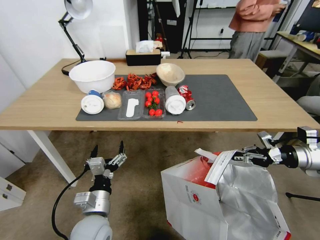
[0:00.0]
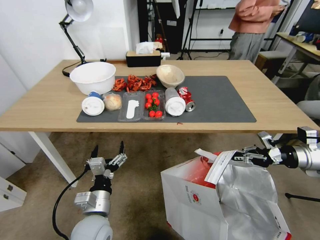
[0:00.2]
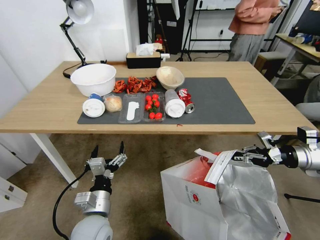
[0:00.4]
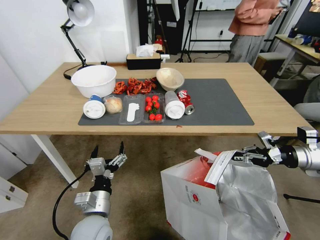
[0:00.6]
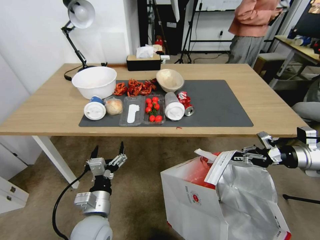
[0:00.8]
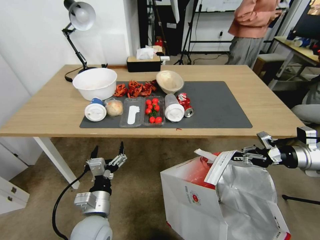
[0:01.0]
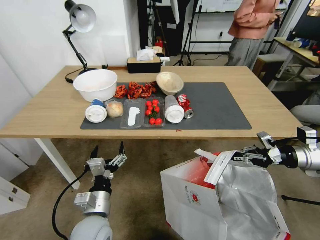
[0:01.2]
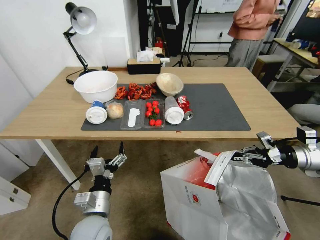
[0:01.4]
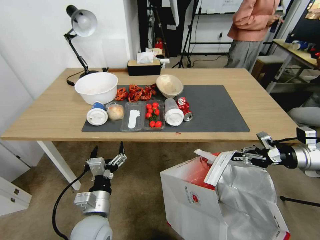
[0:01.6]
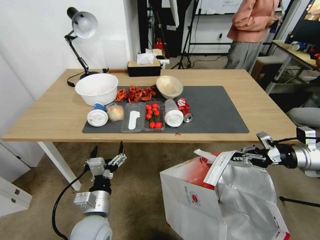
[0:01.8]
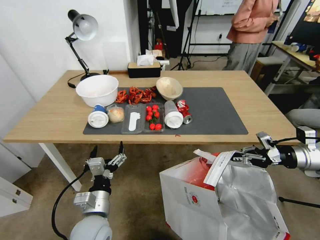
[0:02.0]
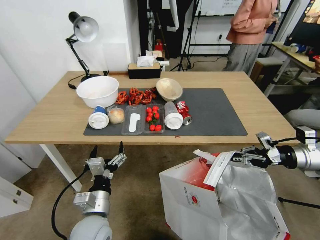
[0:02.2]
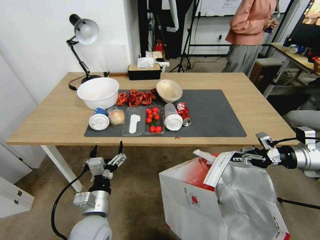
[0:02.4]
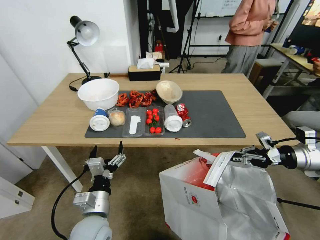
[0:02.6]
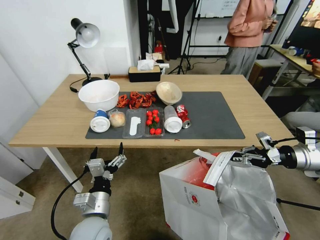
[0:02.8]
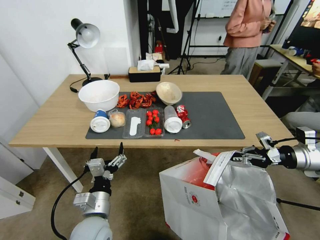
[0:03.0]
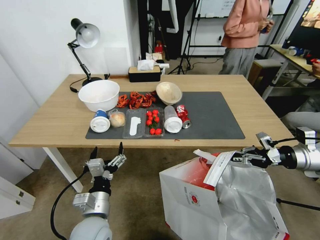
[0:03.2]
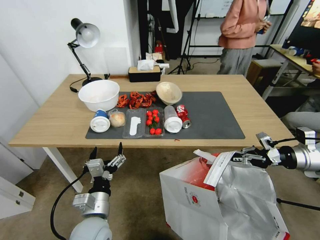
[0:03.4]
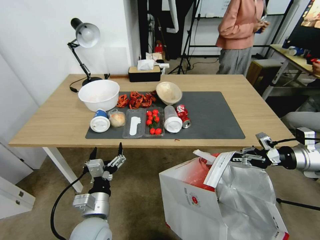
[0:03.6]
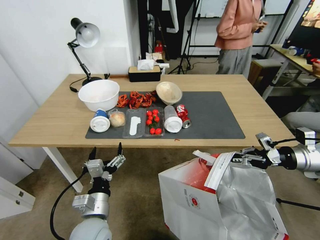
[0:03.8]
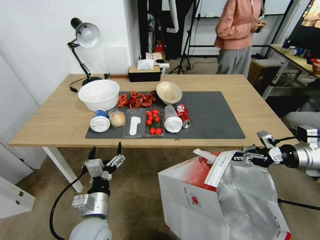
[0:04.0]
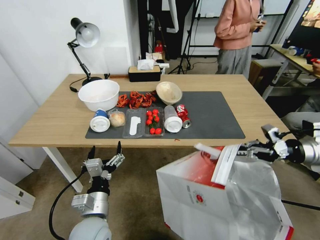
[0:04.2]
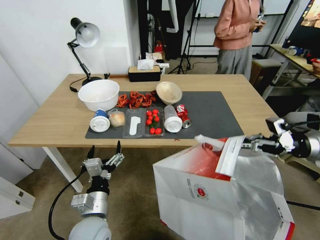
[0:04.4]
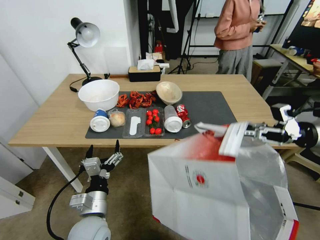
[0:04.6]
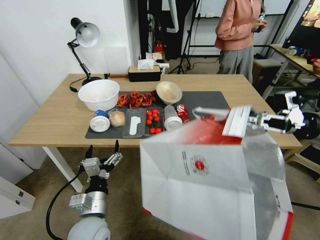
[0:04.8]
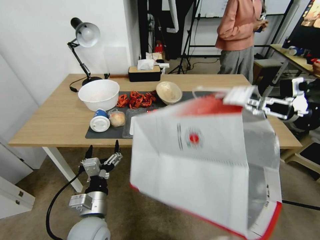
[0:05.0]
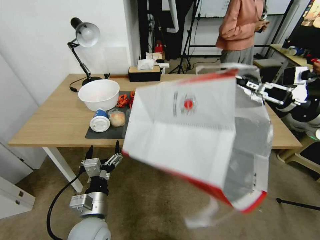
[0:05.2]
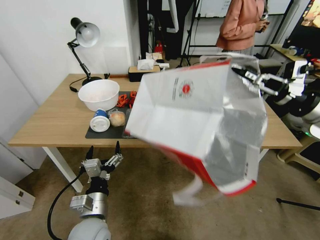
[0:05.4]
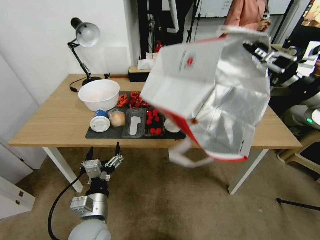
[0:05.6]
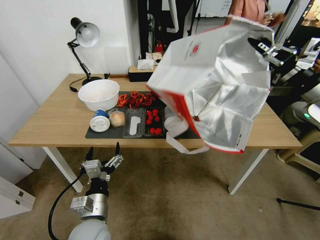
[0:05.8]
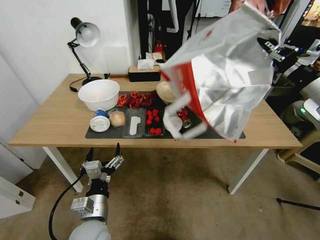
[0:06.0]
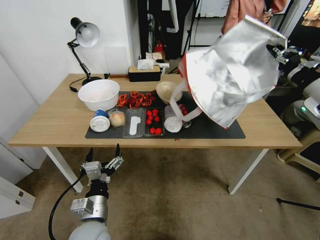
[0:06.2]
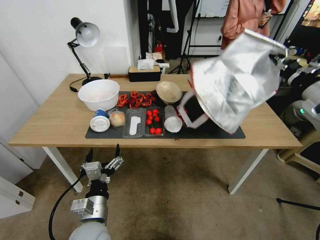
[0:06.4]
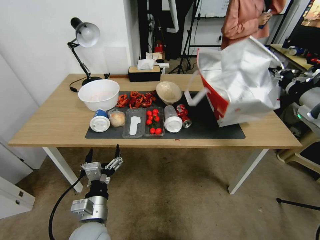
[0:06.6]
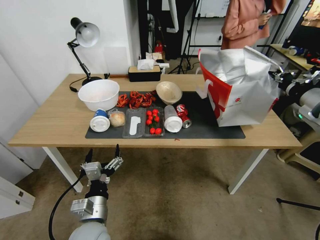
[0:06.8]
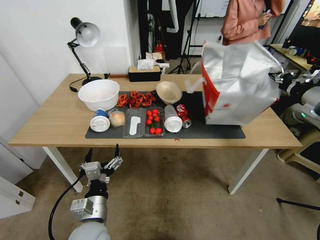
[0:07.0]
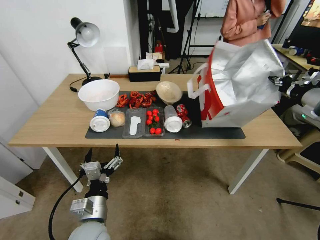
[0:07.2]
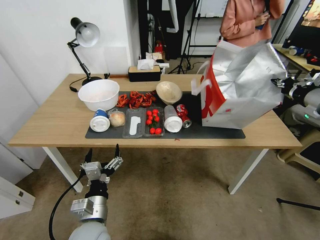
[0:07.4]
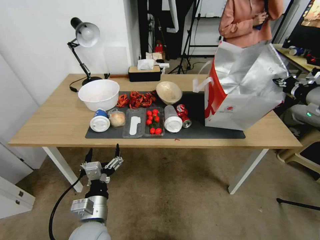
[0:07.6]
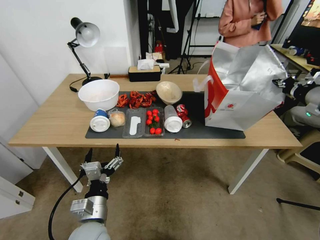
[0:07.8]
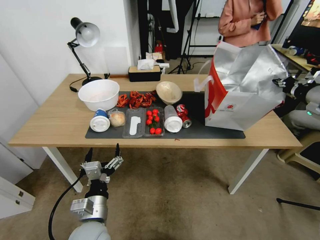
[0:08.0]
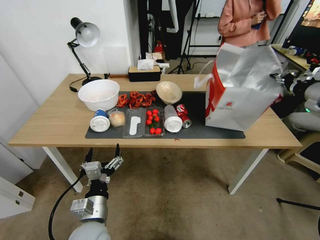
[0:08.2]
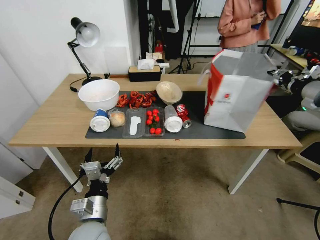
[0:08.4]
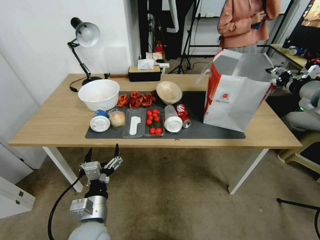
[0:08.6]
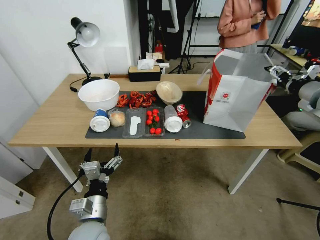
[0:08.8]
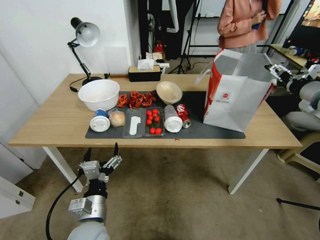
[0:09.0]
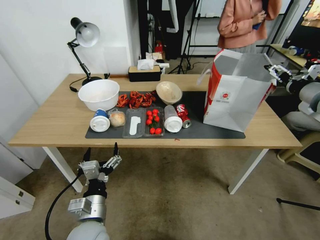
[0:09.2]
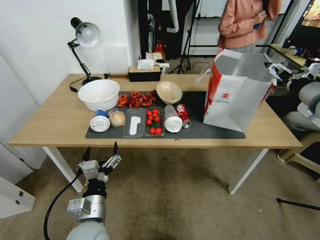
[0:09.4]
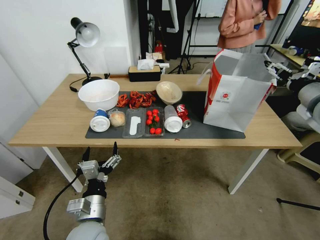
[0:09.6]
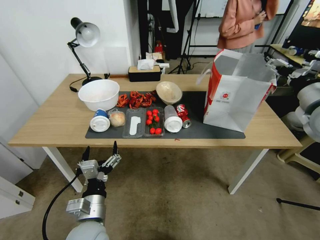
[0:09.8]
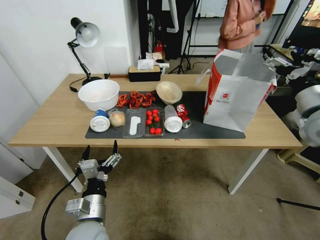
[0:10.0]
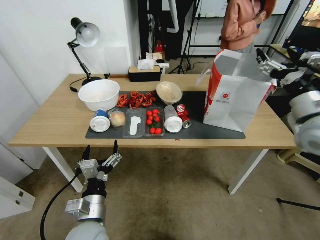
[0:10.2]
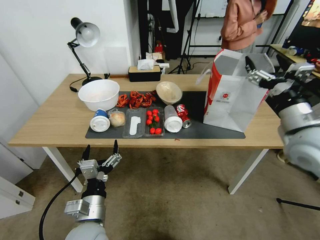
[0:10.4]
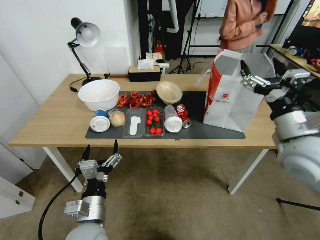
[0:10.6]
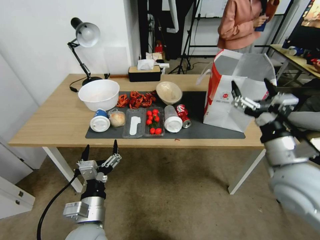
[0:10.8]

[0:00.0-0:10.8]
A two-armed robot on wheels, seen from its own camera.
Task of the whole recording: Pick up the food delivery bag from the floor and place it on the table.
0:03.0 to 0:04.6: The right gripper moves upward, approximately 10 cm.
0:04.6 to 0:06.2: The right gripper travels upward and to the left by roughly 10 cm.
0:07.8 to 0:09.2: The right gripper opens up.
0:09.2 to 0:10.8: The right gripper is displaced to the left, backward and downward by roughly 20 cm.

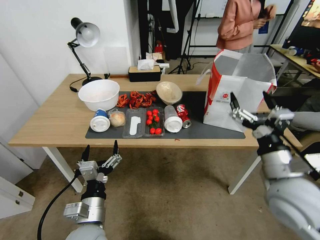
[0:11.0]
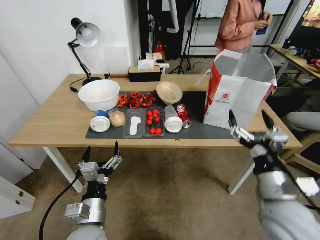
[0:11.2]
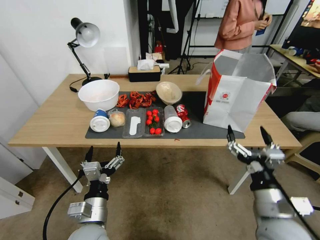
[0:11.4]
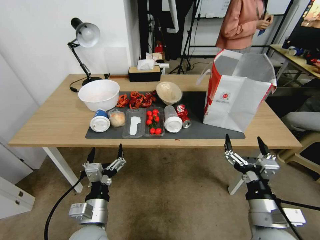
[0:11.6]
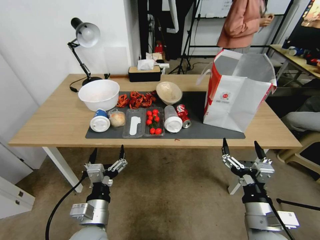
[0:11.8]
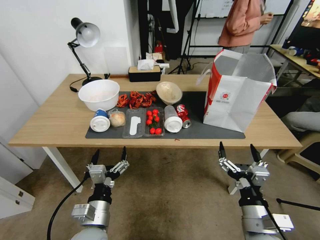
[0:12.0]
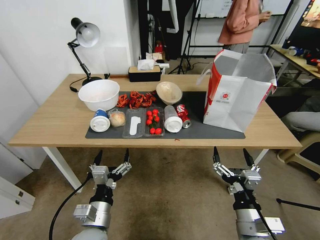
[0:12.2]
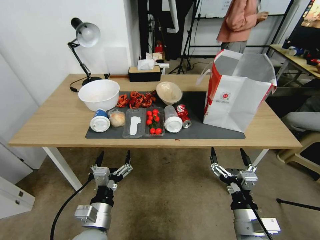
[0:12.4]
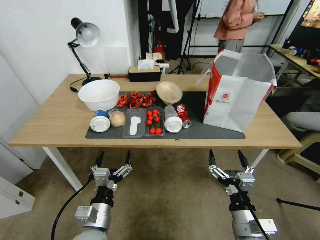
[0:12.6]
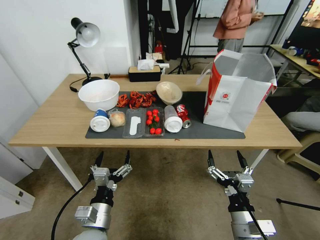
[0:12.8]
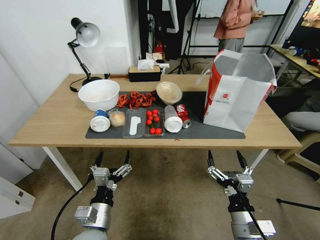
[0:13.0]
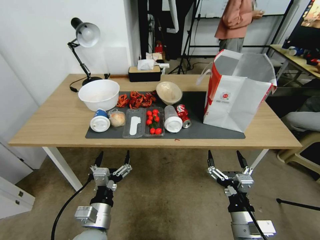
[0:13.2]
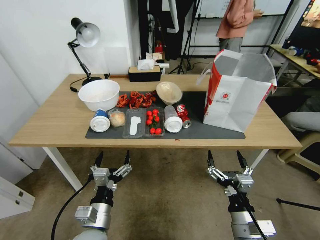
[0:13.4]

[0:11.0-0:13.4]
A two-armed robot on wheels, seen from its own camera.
Task of the whole recording: Pick up the food delivery bag from the floor and place it on the table.
0:11.0 to 0:12.2: The right gripper moves downward, backward and to the left, about 15 cm.
0:12.2 to 0:13.4: There are only small adjustments of the grippers.

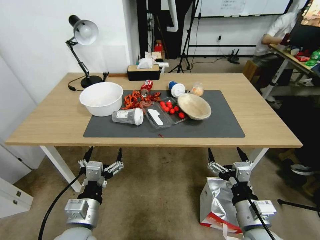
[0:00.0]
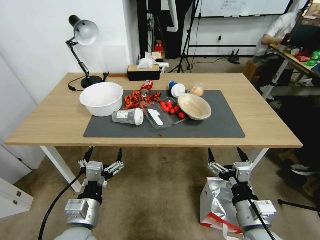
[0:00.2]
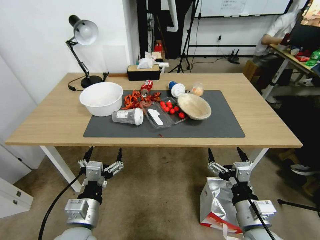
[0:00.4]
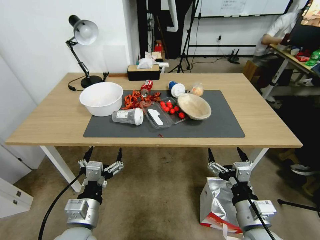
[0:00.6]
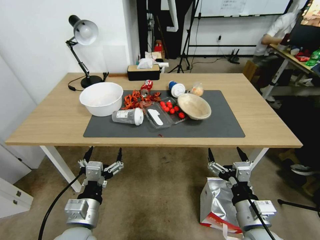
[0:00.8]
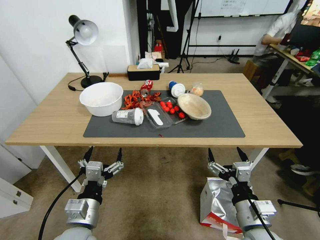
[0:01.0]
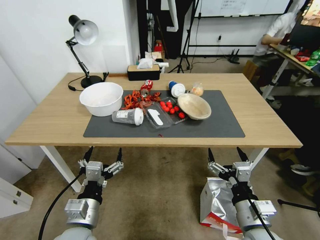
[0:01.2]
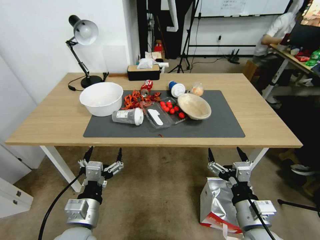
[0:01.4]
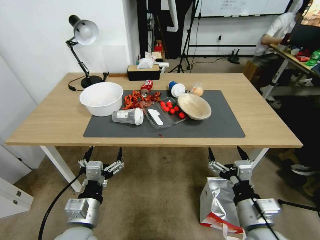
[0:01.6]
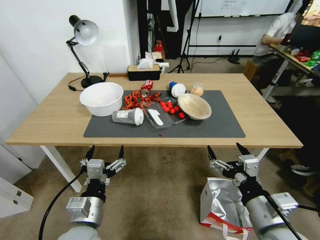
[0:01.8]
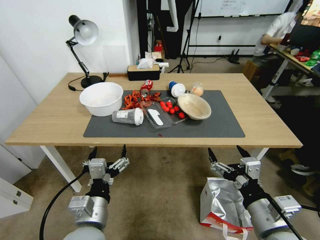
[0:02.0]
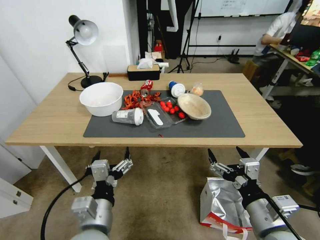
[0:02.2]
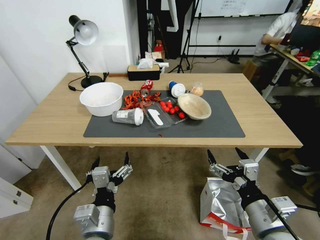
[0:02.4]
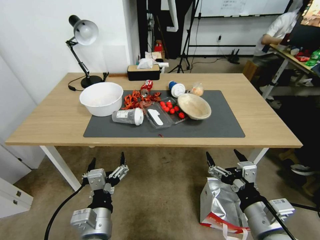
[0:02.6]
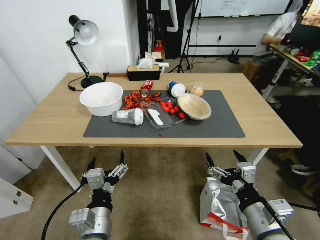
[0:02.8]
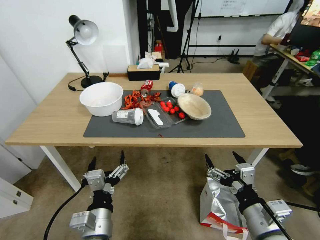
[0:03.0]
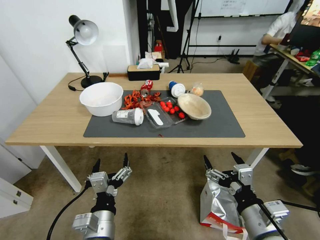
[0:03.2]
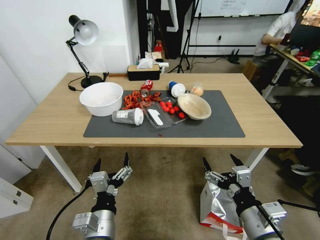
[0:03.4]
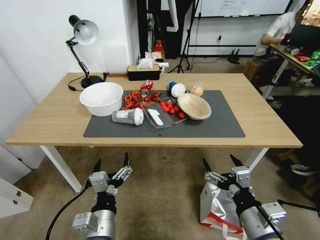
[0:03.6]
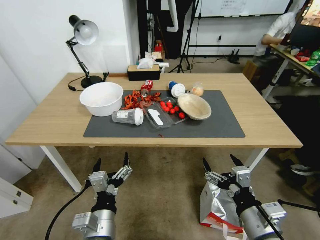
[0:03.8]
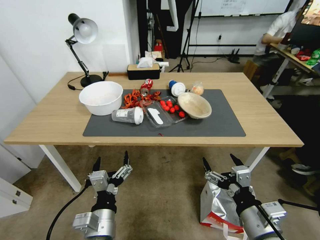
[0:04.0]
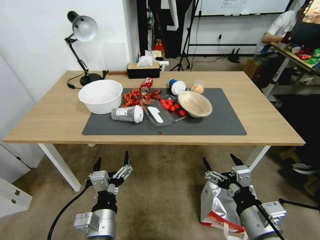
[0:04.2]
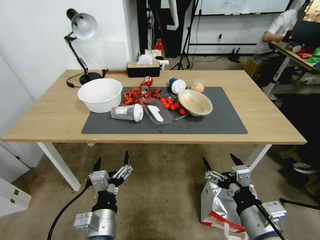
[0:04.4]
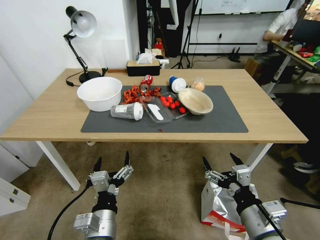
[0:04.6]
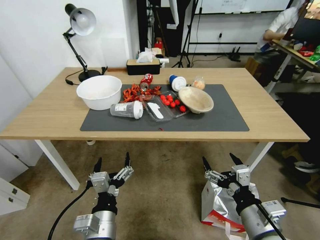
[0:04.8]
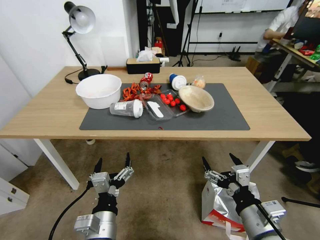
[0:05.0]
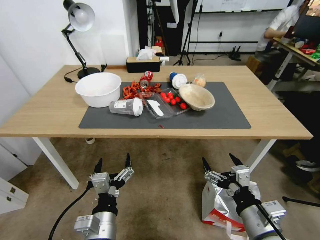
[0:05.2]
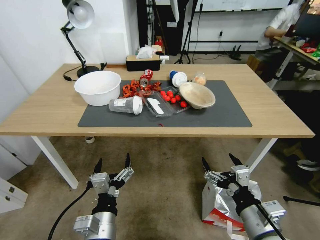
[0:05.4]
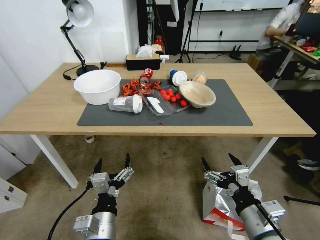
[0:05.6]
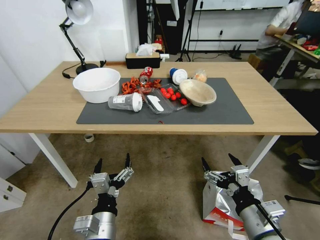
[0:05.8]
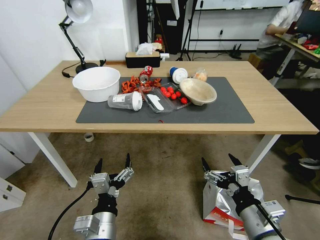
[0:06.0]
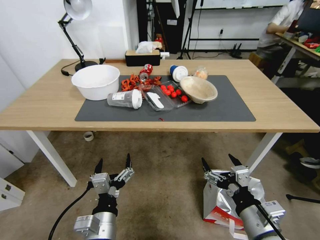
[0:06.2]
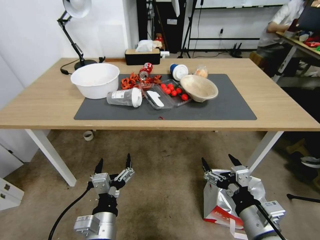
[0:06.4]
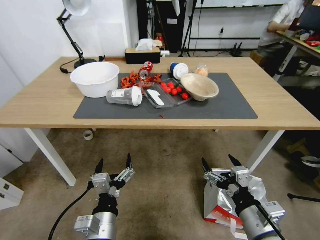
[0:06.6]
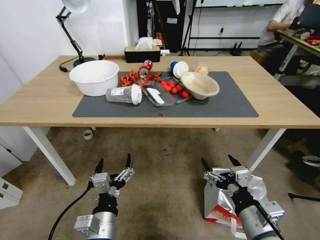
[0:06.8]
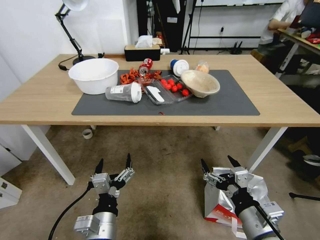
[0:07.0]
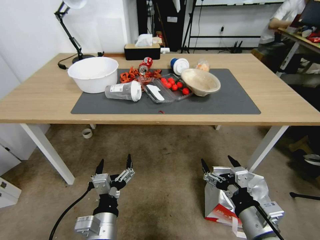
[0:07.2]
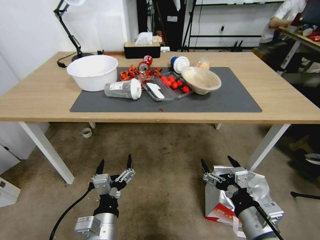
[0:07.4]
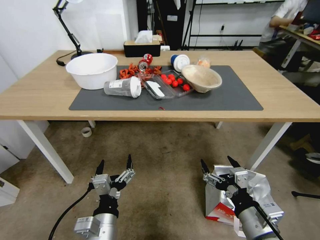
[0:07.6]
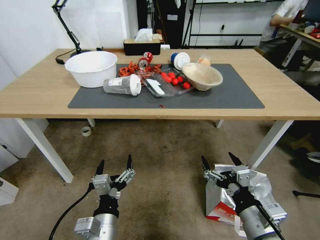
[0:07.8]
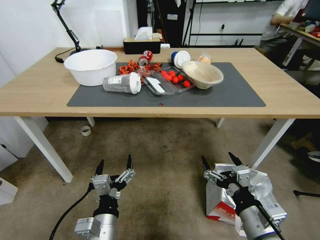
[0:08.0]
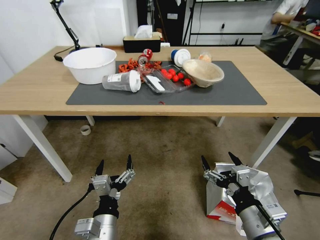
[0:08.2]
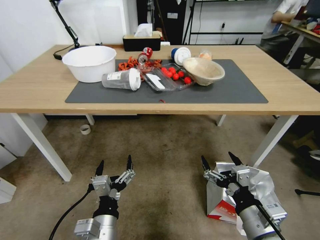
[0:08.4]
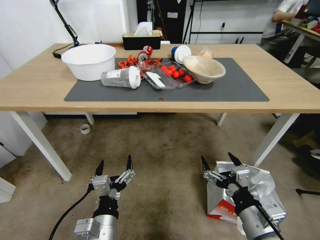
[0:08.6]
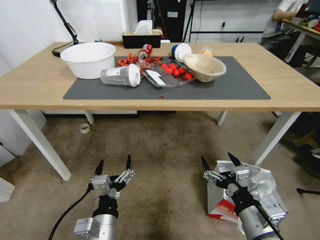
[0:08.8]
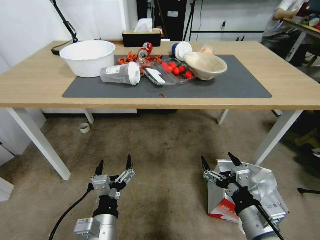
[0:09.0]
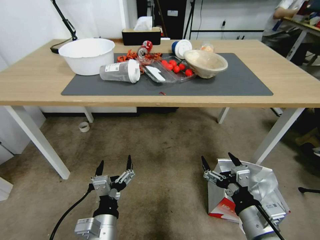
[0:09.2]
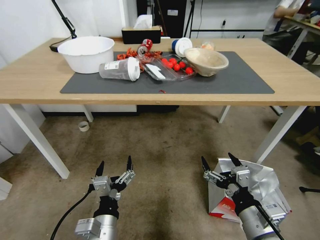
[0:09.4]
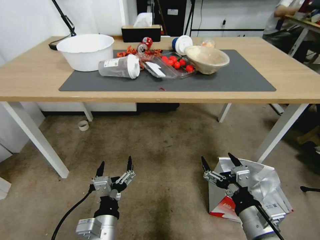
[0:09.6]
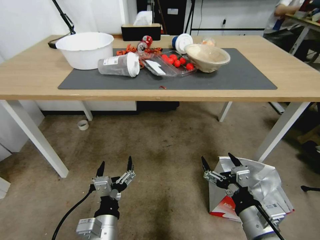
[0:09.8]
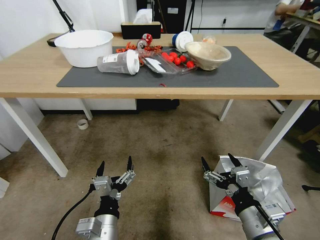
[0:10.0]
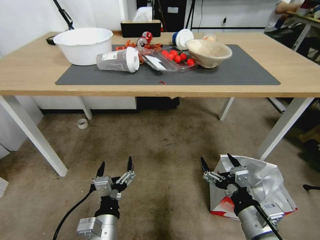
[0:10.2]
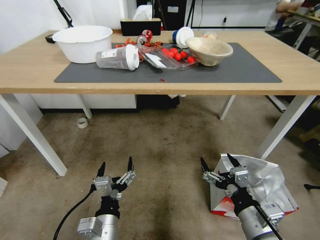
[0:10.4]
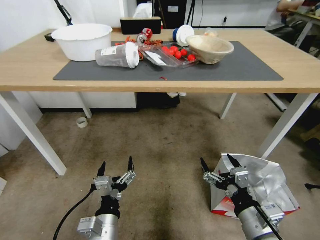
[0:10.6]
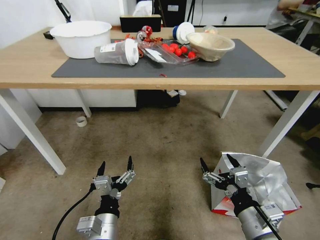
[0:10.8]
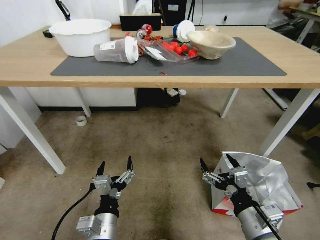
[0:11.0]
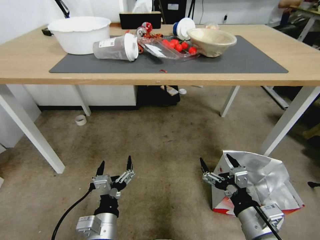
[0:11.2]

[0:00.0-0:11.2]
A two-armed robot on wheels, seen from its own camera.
Task of the whole recording: Pick up the food delivery bag from the floor and place it on the table.
0:01.6 to 0:03.2: The left gripper heads to the right, covering roughly 5 cm.
